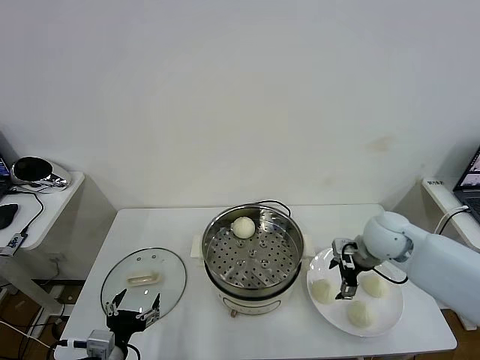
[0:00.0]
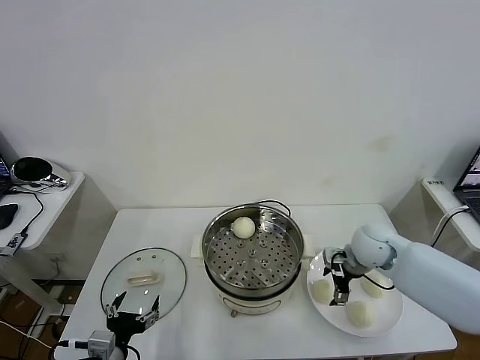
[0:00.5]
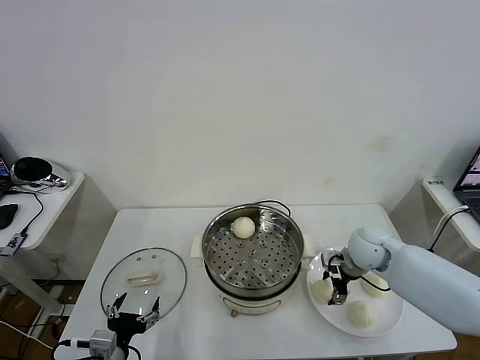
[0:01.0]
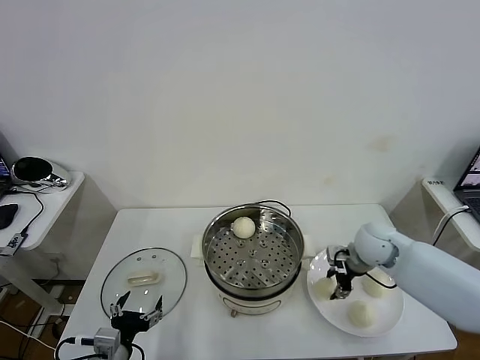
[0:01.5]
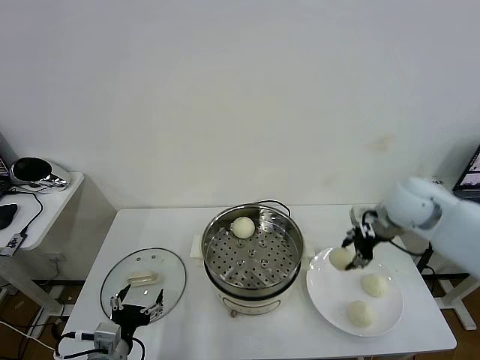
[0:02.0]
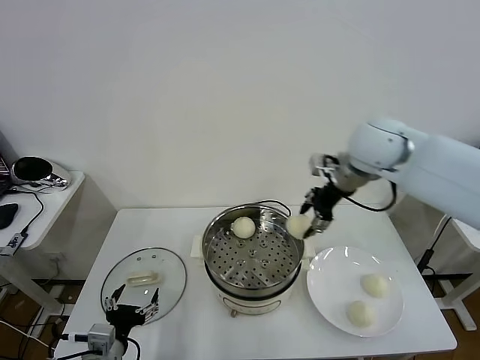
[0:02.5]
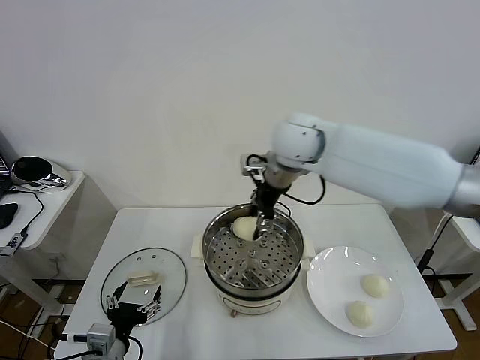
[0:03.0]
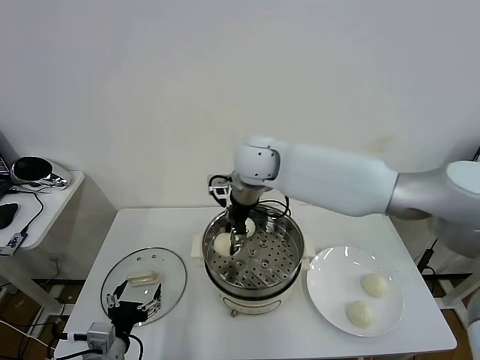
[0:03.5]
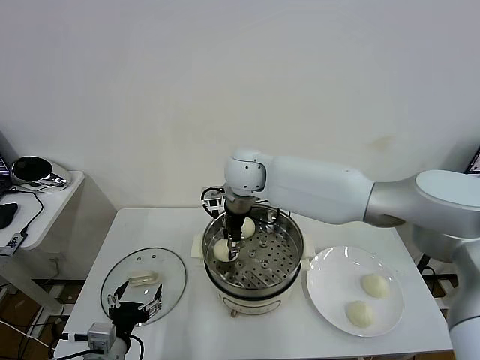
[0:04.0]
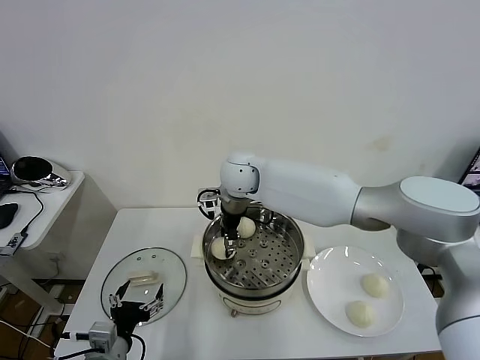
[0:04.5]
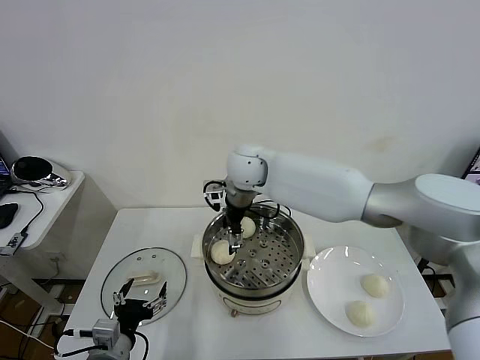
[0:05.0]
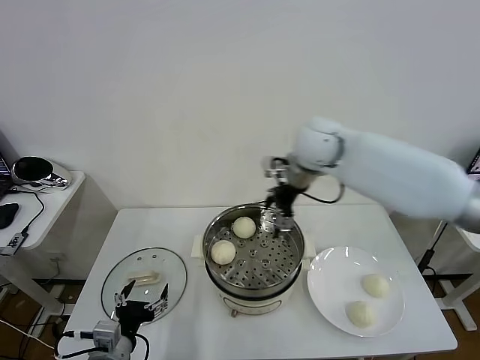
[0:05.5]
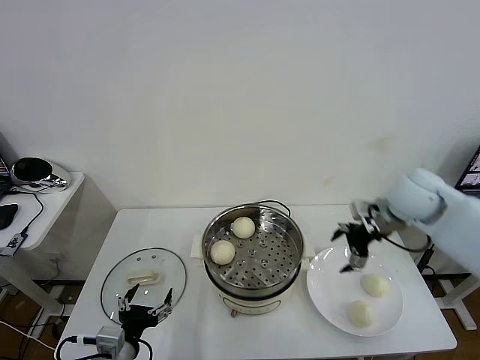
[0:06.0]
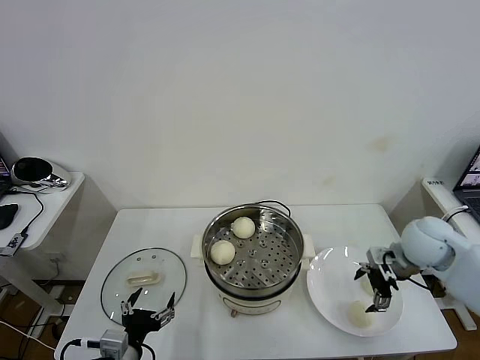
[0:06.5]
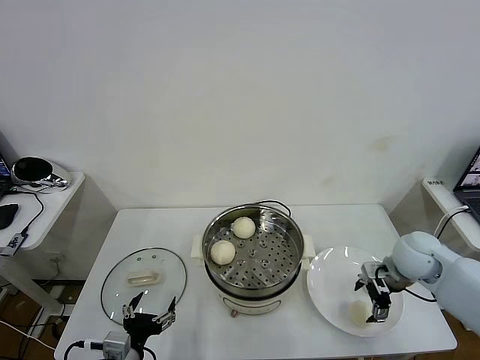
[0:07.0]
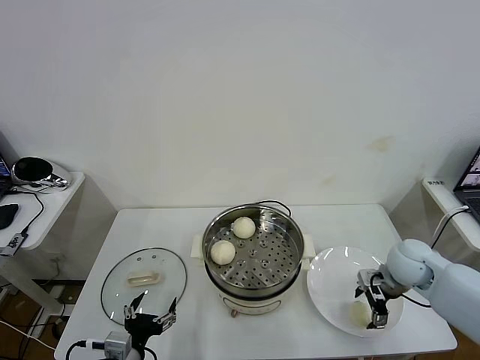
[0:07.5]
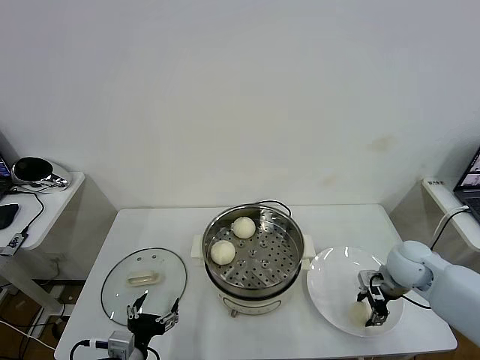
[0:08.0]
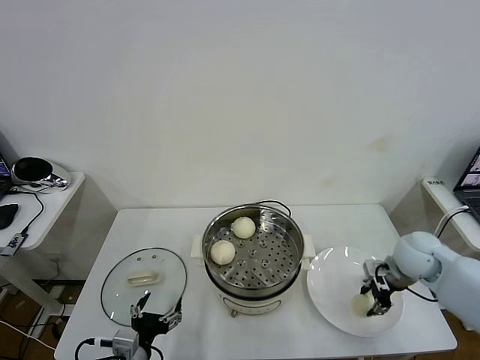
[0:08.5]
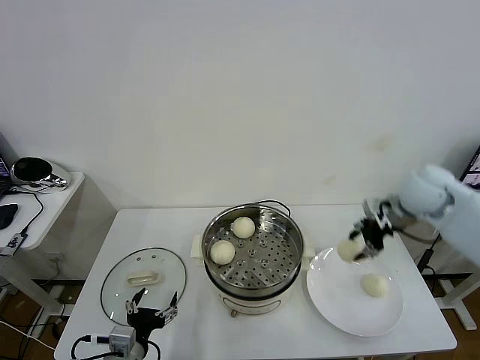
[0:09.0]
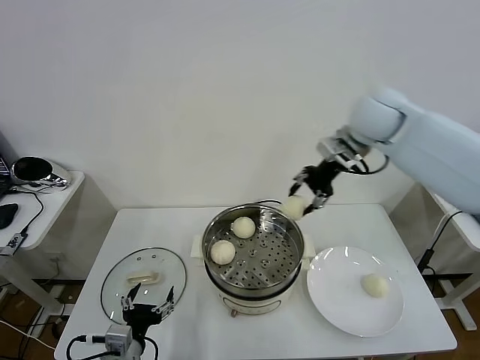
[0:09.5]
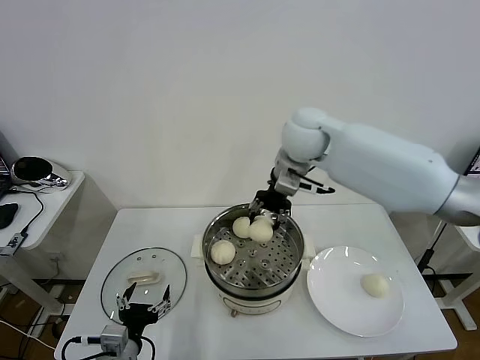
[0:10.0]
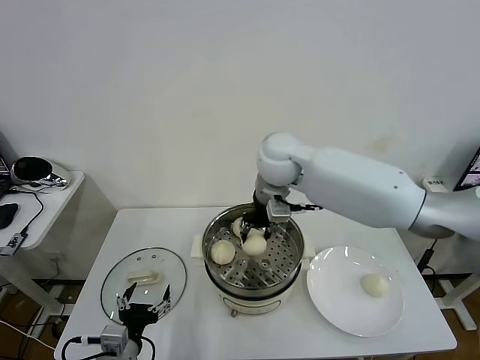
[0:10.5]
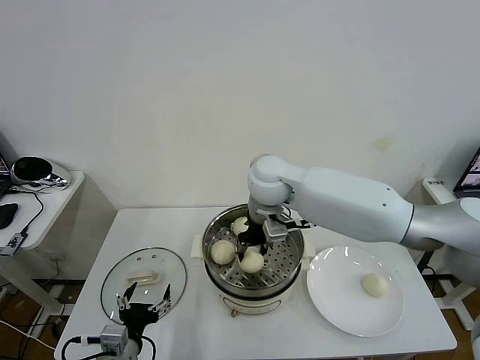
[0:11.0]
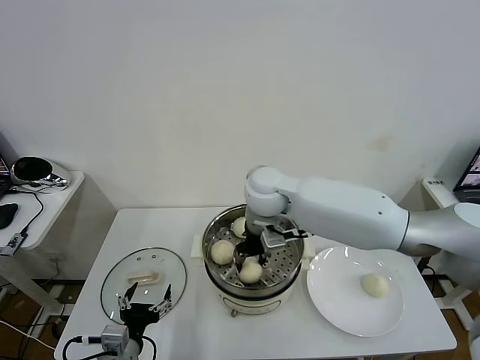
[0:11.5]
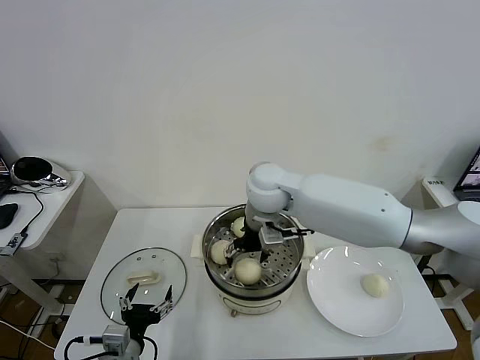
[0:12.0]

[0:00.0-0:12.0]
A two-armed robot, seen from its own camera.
Task of the whole recording: take steamed baozi put them in steamer then cover it.
Step, 0:01.5 to 0:05.0: Place the baozi on the steamer with right gripper.
Step, 0:05.5 to 0:08.0: Grasp the baozi in the plate with right gripper.
0:00.0 to 0:02.0: The right gripper heads upward, covering roughly 10 cm, and closes its fingers.
0:02.0 to 0:04.0: The right gripper travels to the left by some 35 cm.
0:04.0 to 0:06.0: The right gripper travels to the right by approximately 35 cm, and opens its fingers.
0:06.0 to 0:08.0: The right gripper is displaced downward by approximately 15 cm, and closes its fingers.
0:08.0 to 0:10.0: The right gripper moves to the left, upward and forward, some 40 cm.
0:10.0 to 0:12.0: The right gripper travels downward, to the left and backward by approximately 10 cm, and opens up.

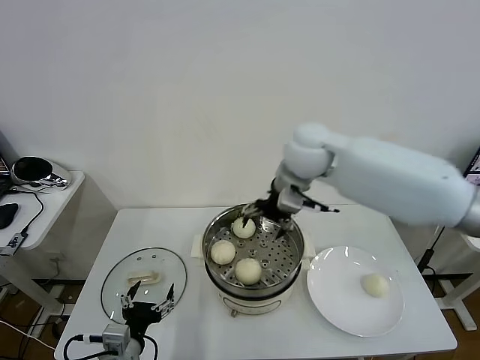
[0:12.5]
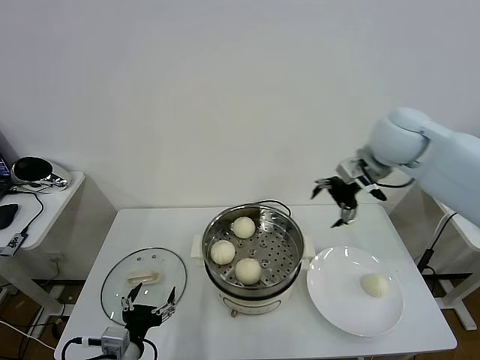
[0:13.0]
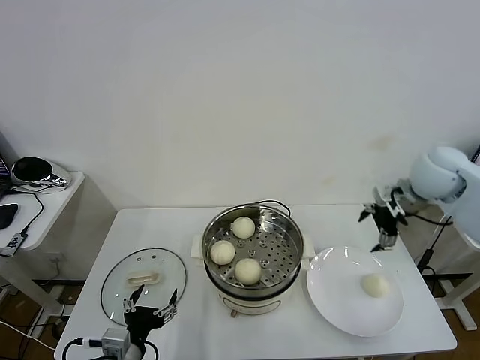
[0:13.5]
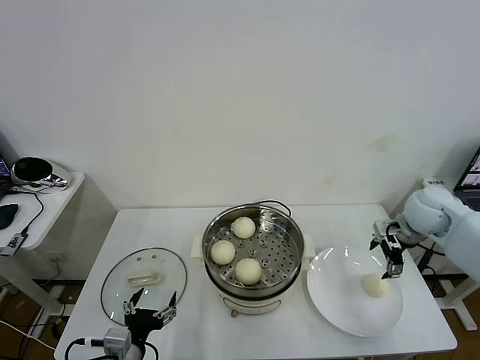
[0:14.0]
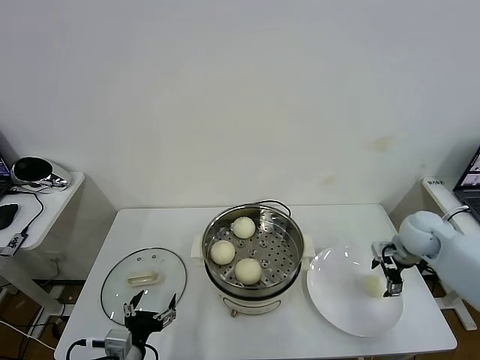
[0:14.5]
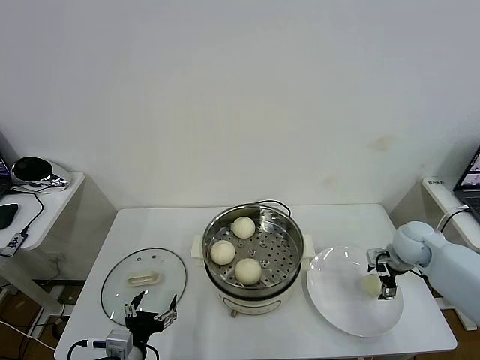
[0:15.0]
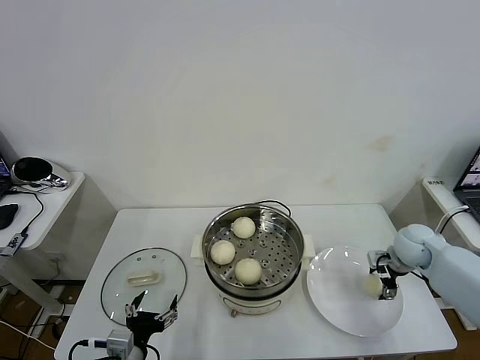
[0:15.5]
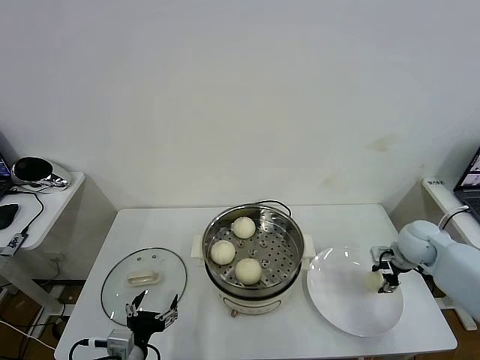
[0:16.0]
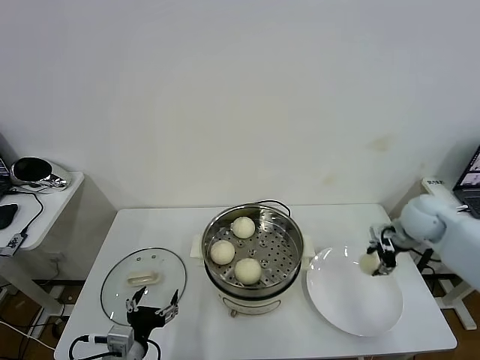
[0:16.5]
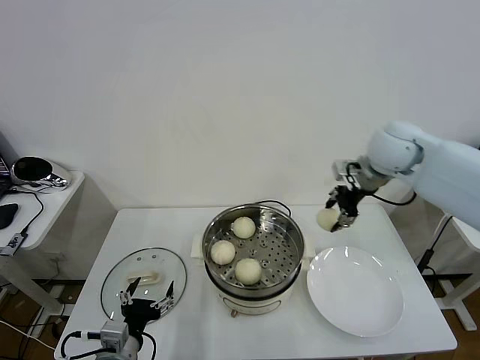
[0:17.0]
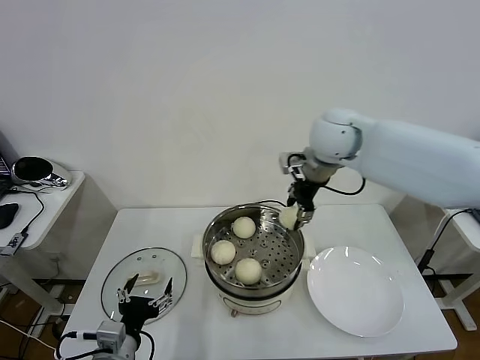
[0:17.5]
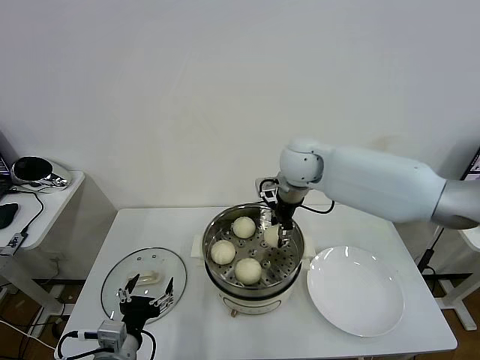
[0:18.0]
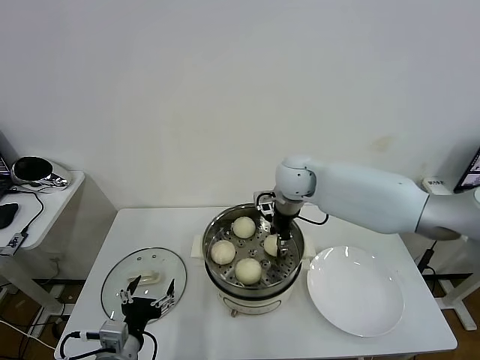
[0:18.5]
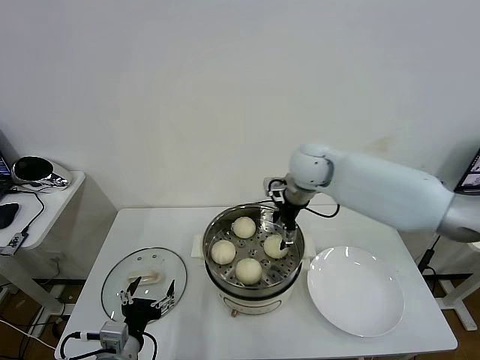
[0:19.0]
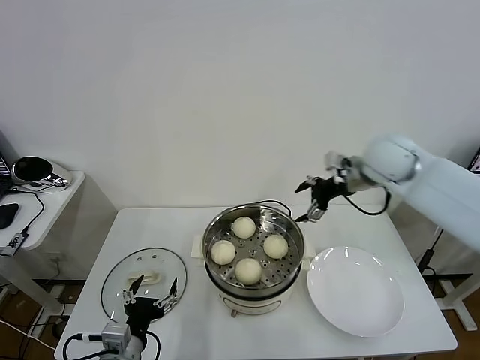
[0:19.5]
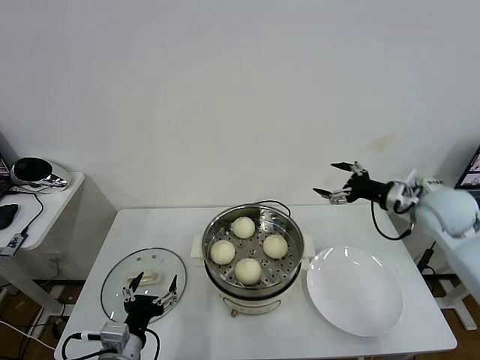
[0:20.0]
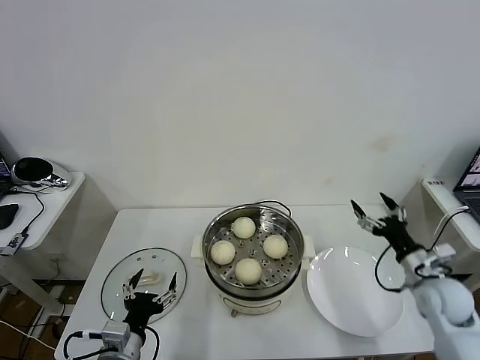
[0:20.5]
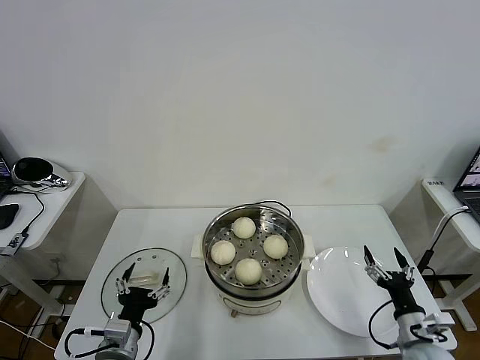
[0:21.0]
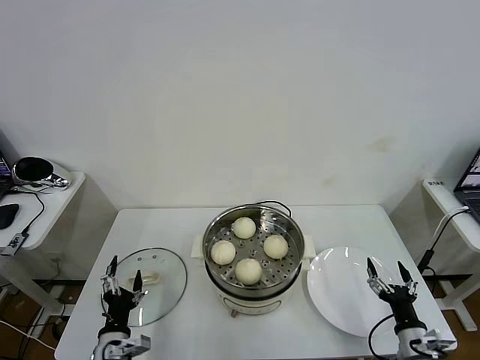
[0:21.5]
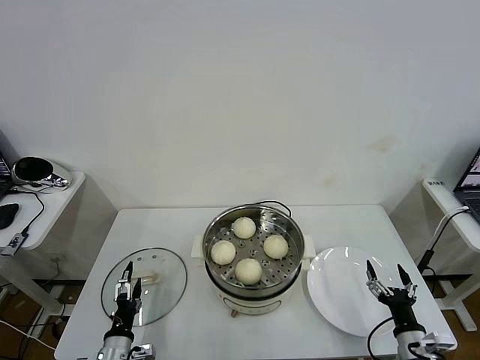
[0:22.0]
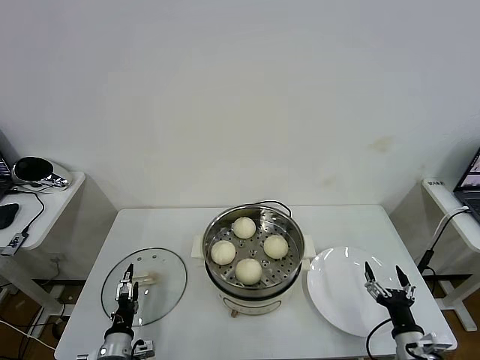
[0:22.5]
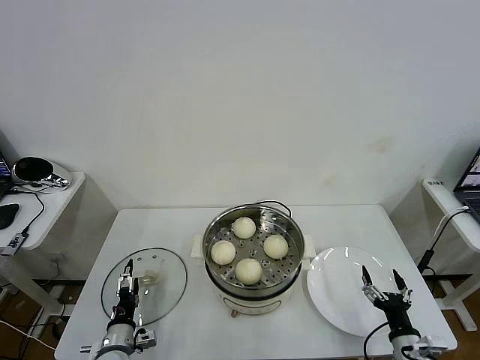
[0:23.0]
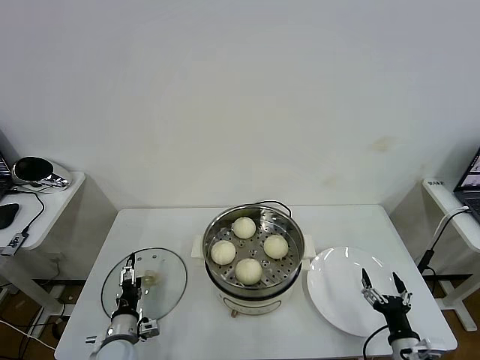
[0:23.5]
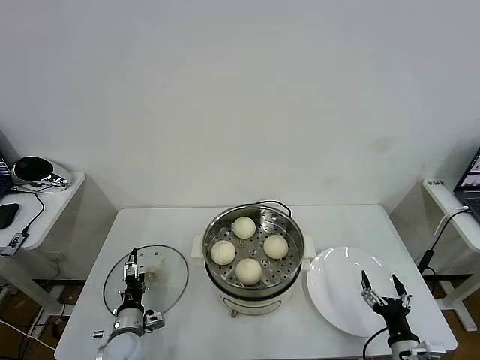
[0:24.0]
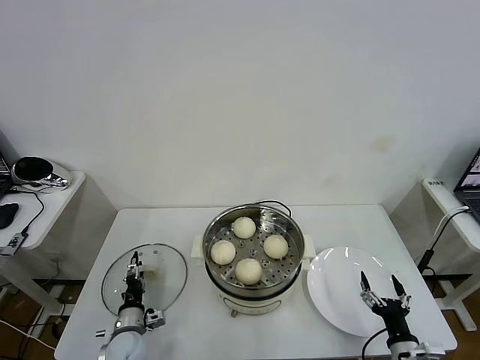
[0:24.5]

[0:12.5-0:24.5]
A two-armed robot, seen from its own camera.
Task of the whole recording: take steamed baozi put them in steamer then cover it.
Step, 0:12.5 to 0:15.5: Grasp the baozi in the plate with right gripper.
Step, 0:16.5 to 0:18.5: Place the baozi on the steamer with right gripper.
0:12.5 to 0:14.5: The right gripper travels to the right and downward by some 35 cm.
0:14.5 to 0:16.5: The right gripper closes.
0:16.5 to 0:18.5: The right gripper heads to the left, covering roughly 30 cm.
0:18.5 to 0:20.5: The right gripper moves to the right, backward and downward, about 40 cm, and opens up.
0:20.5 to 0:22.5: The right gripper is displaced backward and downward by roughly 20 cm. The left gripper is displaced downward and to the left by approximately 15 cm.
0:22.5 to 0:24.5: The left gripper heads forward, covering some 5 cm.

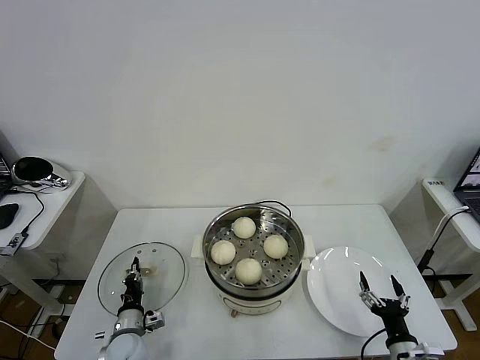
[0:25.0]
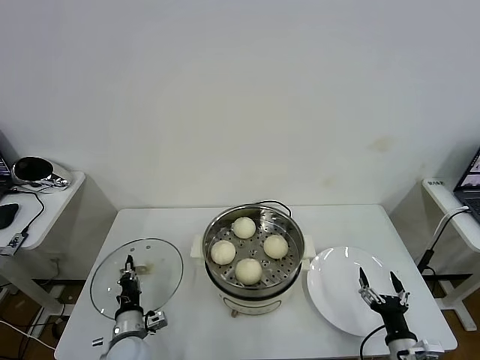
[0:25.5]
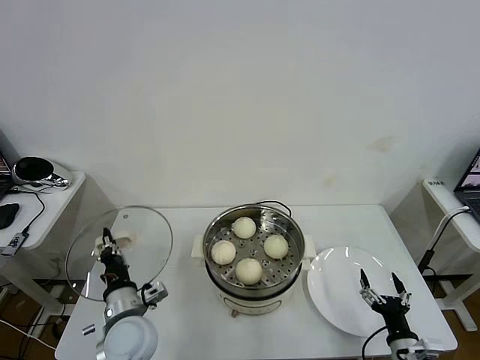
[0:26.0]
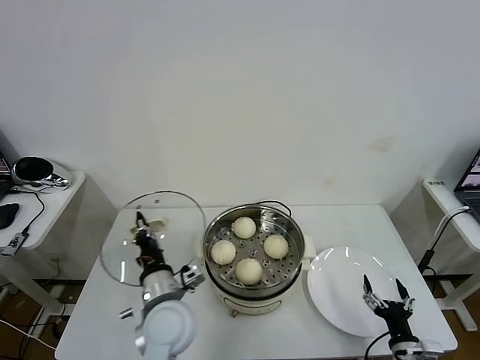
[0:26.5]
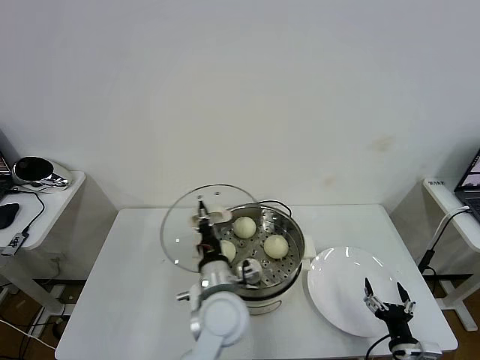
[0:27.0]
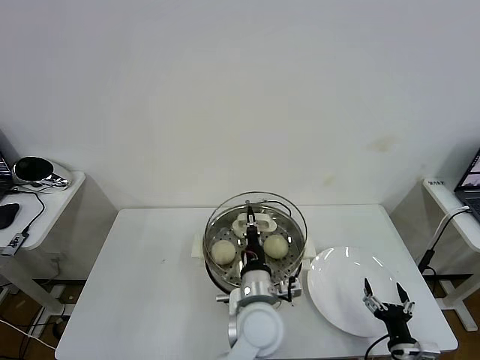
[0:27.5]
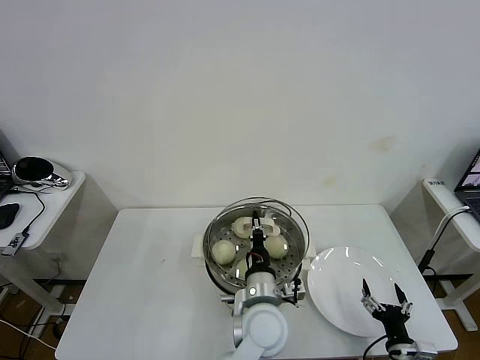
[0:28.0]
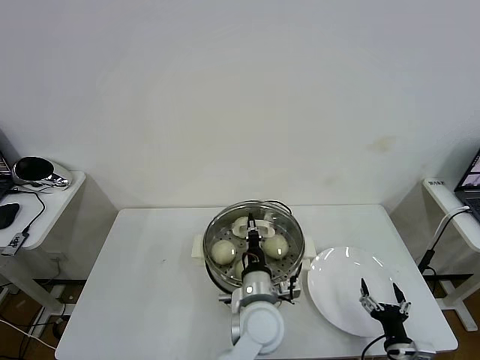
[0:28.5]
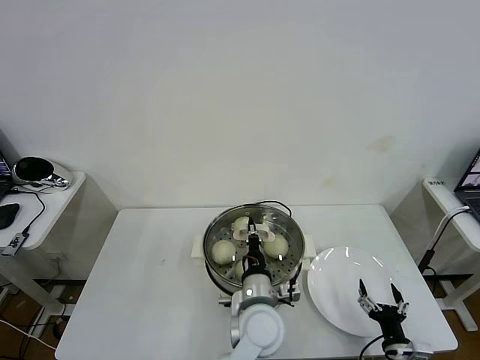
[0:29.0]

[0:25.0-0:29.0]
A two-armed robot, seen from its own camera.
Task of the whole recording: take steamed baozi put them in steamer then cover it.
0:25.0 to 0:27.0: The left gripper heads to the right and upward, covering some 30 cm.
0:27.0 to 0:29.0: The left gripper heads to the right, covering about 10 cm.
